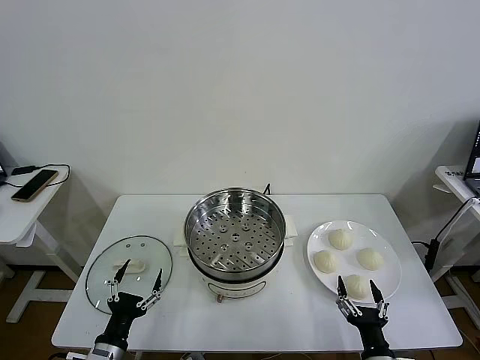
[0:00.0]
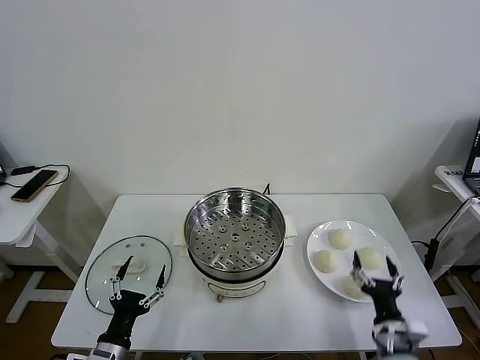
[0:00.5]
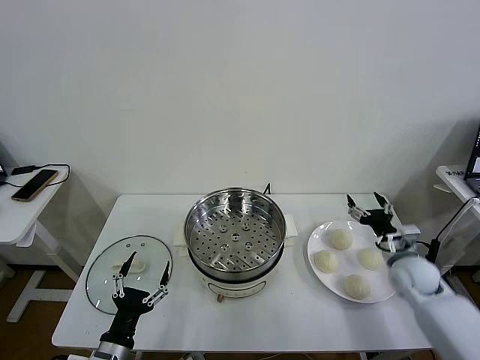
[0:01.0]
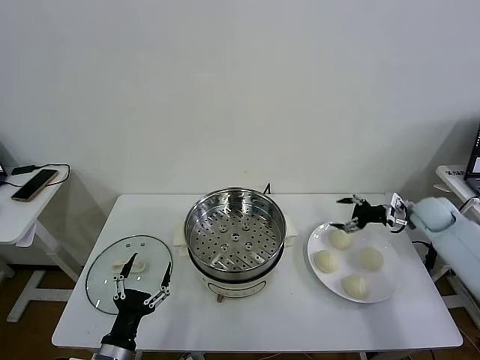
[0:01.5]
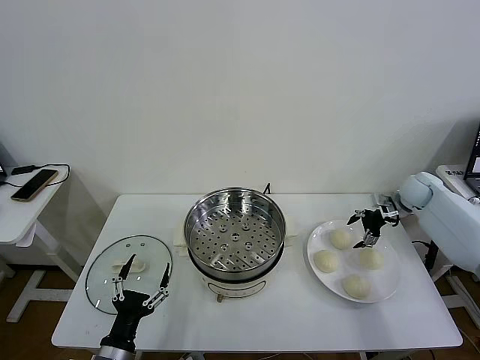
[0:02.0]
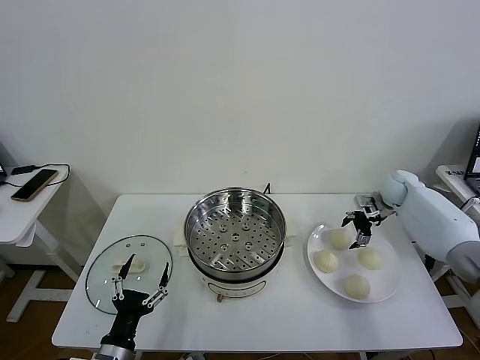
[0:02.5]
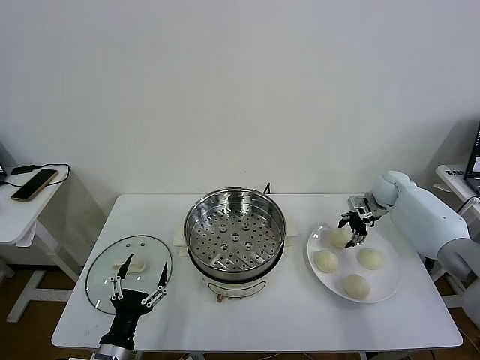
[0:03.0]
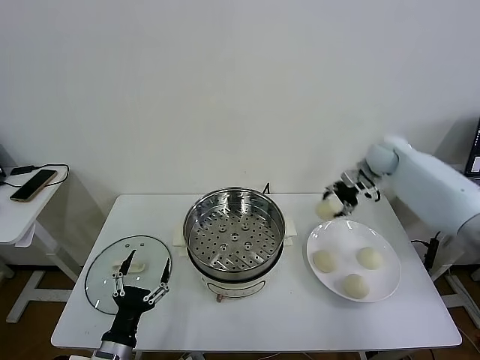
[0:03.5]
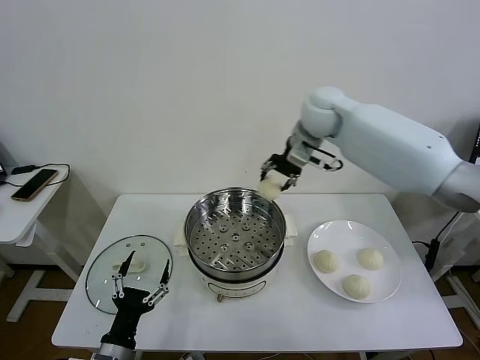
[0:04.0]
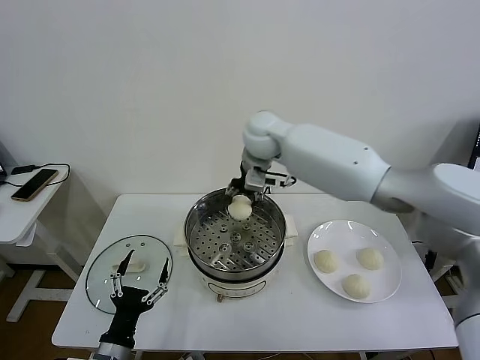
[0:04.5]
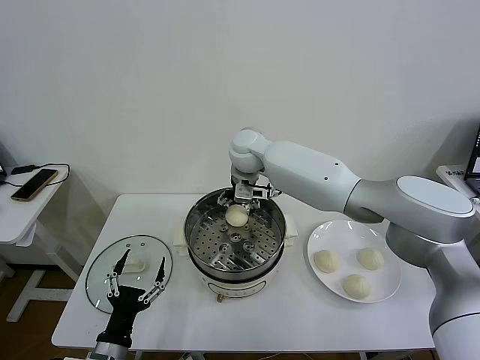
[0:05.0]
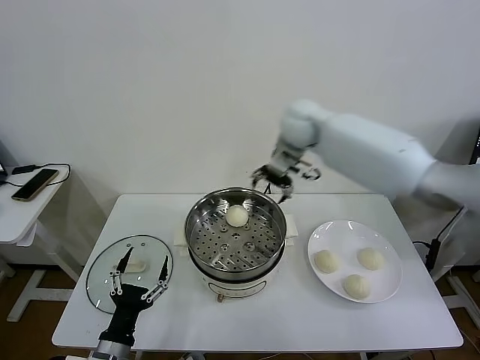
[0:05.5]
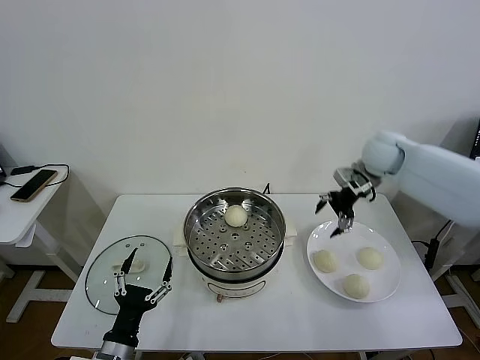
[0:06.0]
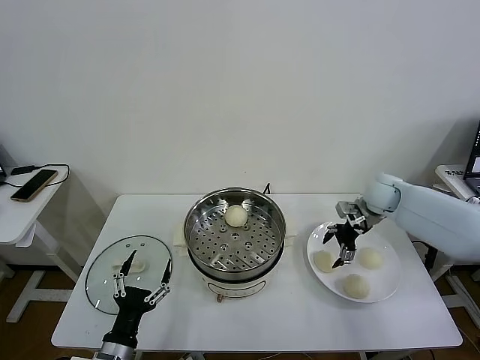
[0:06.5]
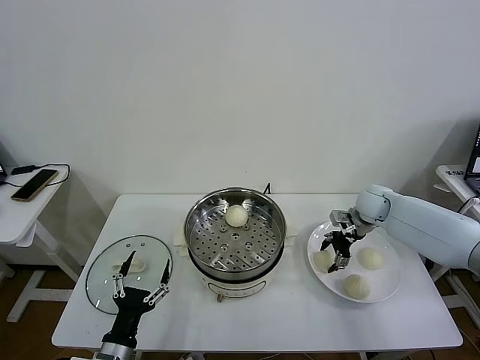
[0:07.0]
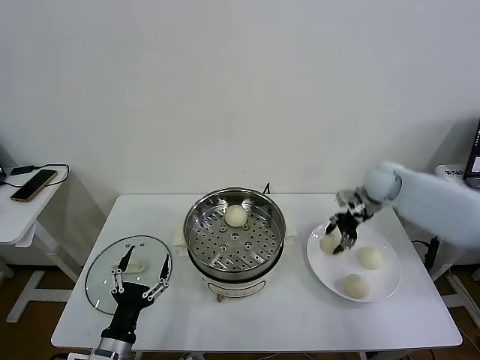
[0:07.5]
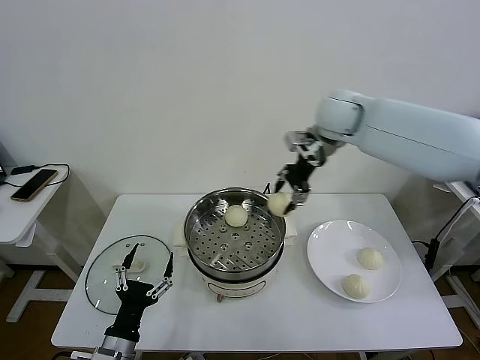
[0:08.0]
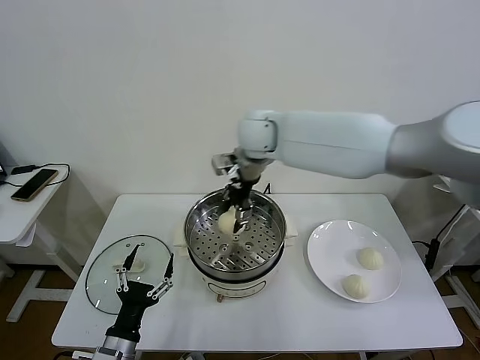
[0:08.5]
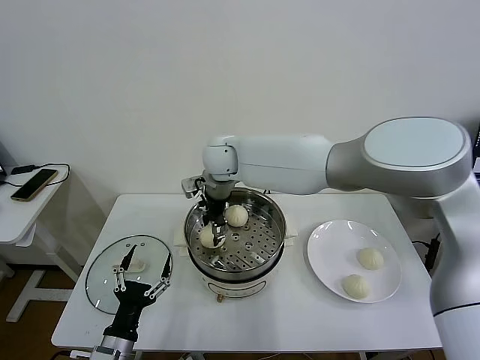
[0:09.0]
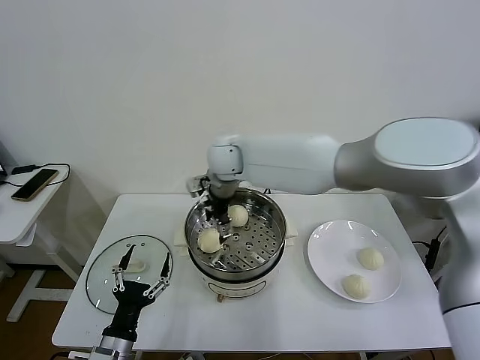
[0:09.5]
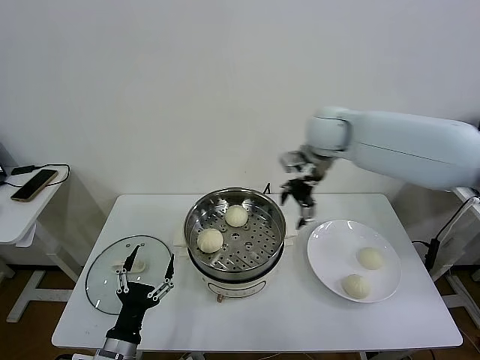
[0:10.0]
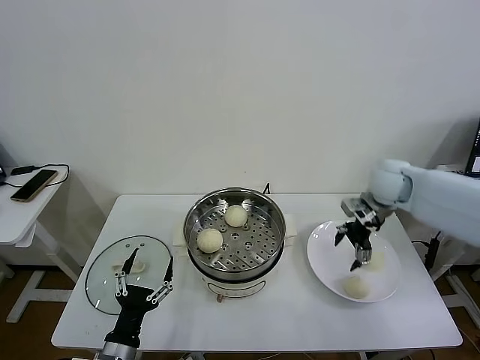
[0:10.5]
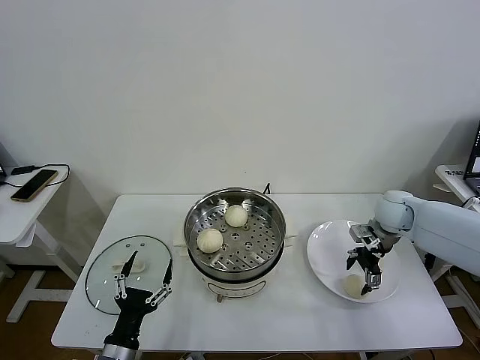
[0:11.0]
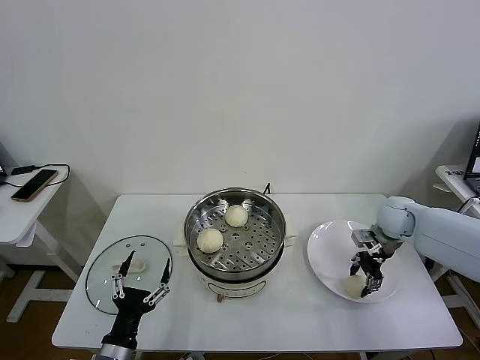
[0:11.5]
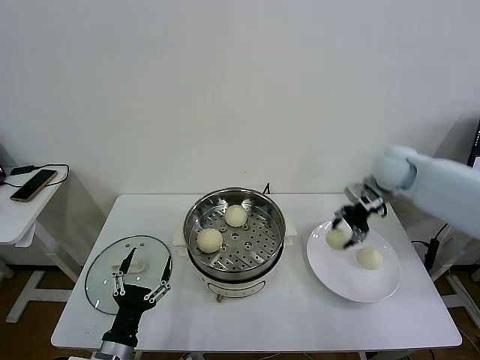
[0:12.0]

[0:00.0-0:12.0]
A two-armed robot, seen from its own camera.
Task of the whole recording: take steamed baozi put them in steamer then cover it.
Step, 0:00.0 to 0:03.0: Grasp the baozi in the plate with right gripper.
Step, 0:03.5 to 0:05.0: Place the baozi on the steamer with right gripper.
Step, 0:05.5 to 0:07.0: Grasp the baozi in the plate with right gripper.
Step, 0:07.5 to 0:09.0: Place the baozi on the steamer with right gripper.
Step, 0:09.5 to 0:11.5: Grasp the baozi in the plate with right gripper.
0:02.0 to 0:04.0: The right gripper moves to the left and upward, about 40 cm, and closes up.
0:04.0 to 0:06.0: The right gripper shifts approximately 25 cm to the right and downward, and opens.
0:06.0 to 0:08.0: The right gripper moves to the left and upward, roughly 20 cm, and closes.
0:08.0 to 0:10.0: The right gripper moves about 20 cm to the left and comes back, and opens.
0:10.0 to 0:12.0: The right gripper is displaced to the right by about 10 cm, goes downward and returns, roughly 20 cm each way, and closes up.

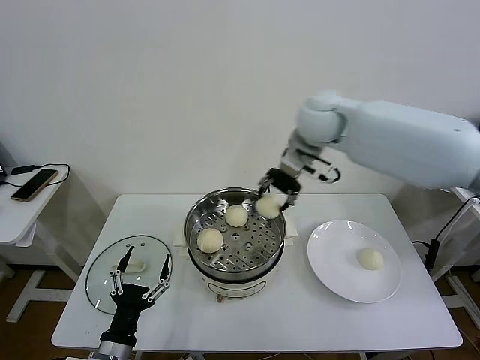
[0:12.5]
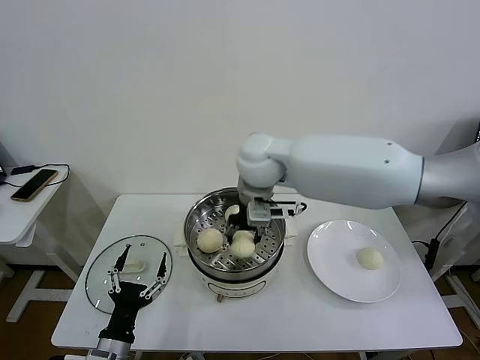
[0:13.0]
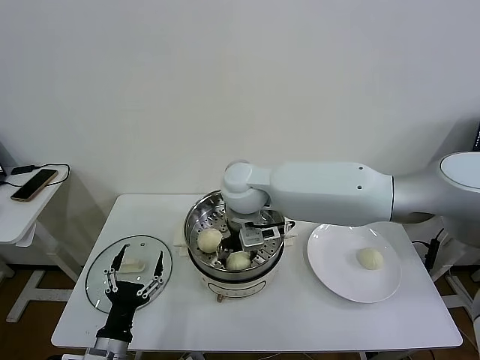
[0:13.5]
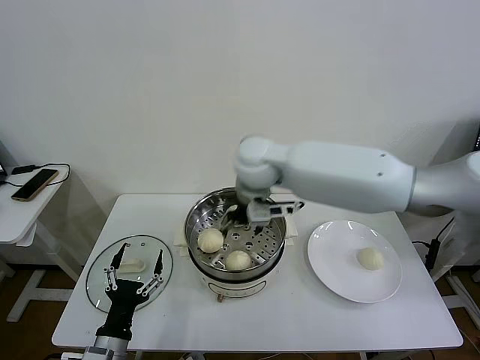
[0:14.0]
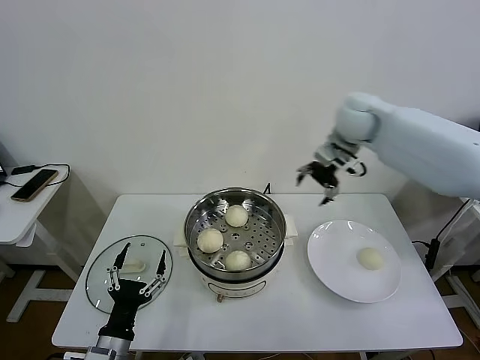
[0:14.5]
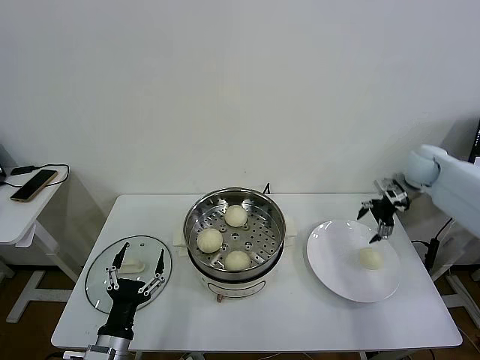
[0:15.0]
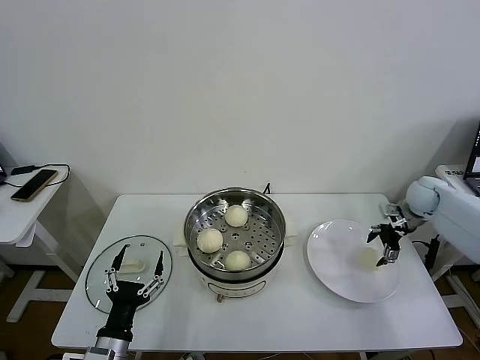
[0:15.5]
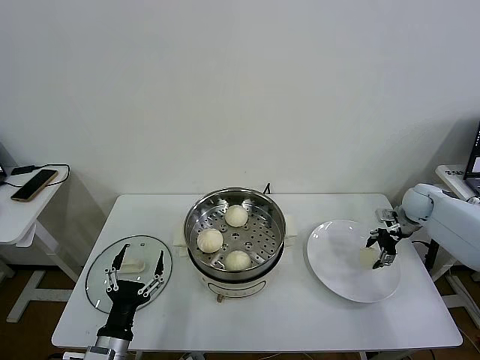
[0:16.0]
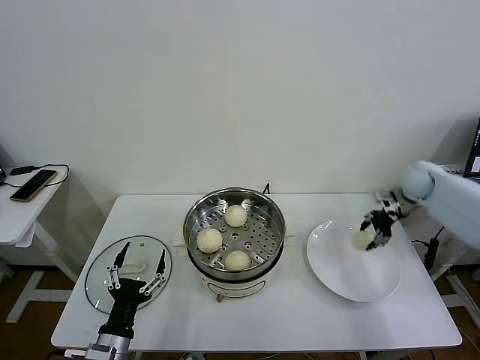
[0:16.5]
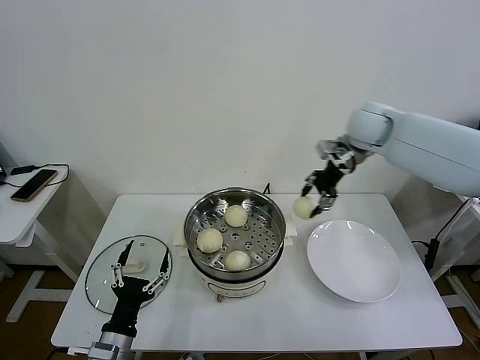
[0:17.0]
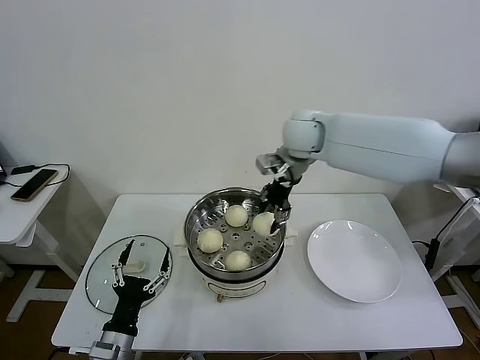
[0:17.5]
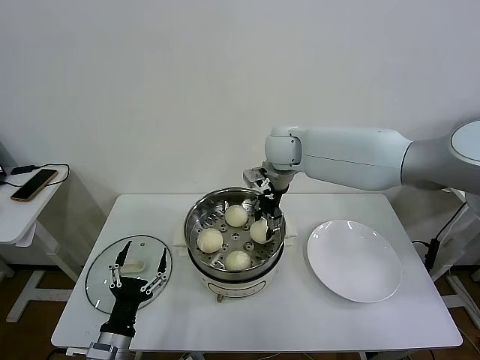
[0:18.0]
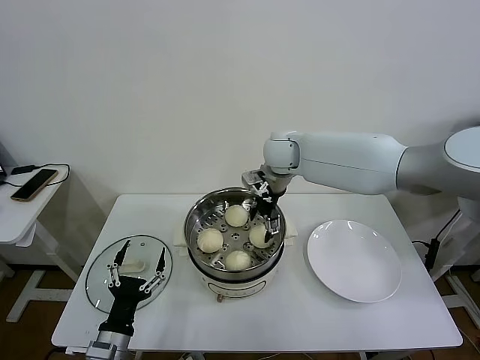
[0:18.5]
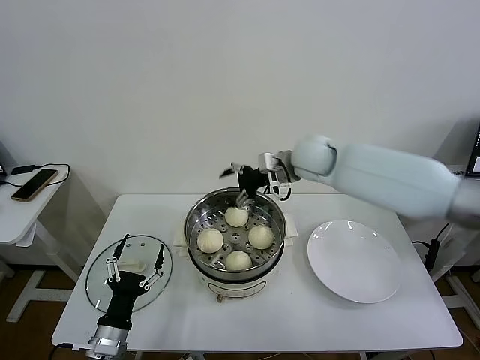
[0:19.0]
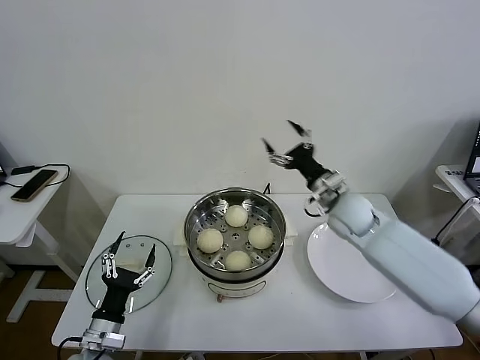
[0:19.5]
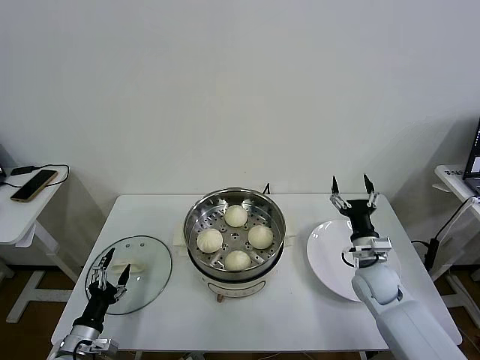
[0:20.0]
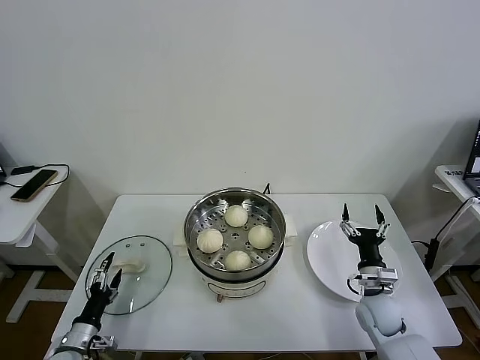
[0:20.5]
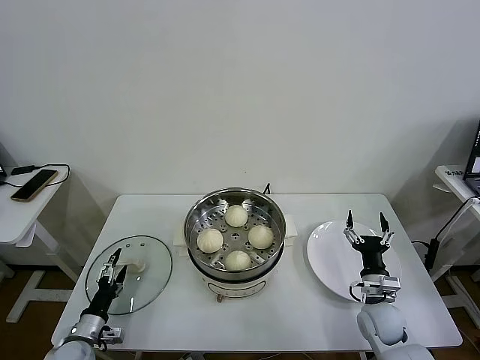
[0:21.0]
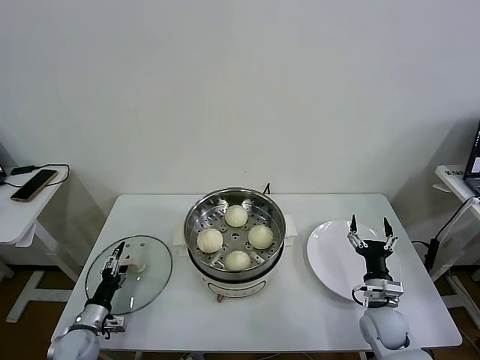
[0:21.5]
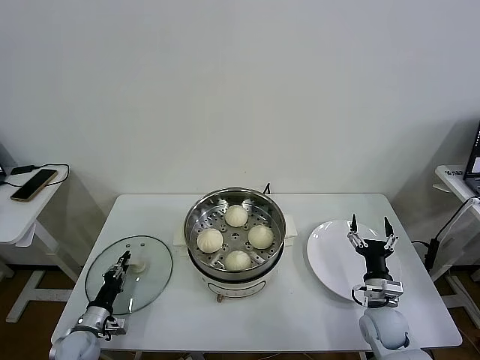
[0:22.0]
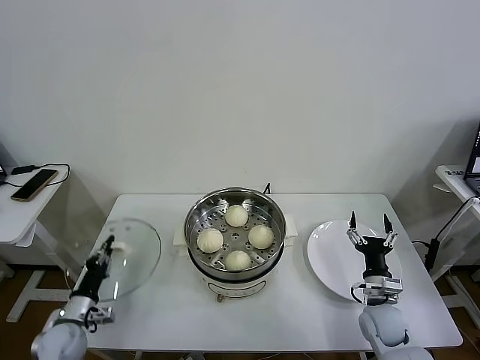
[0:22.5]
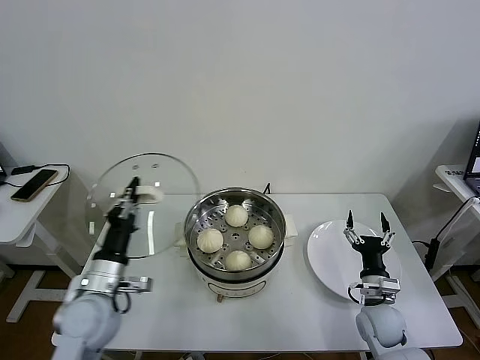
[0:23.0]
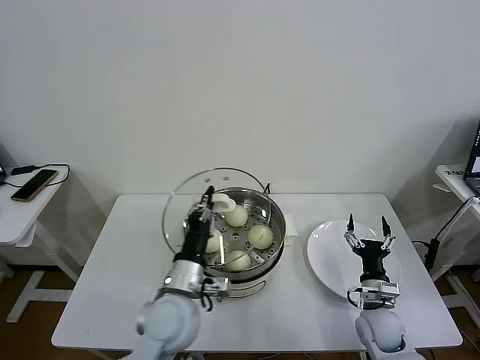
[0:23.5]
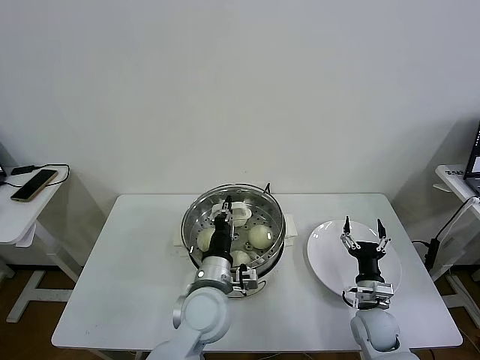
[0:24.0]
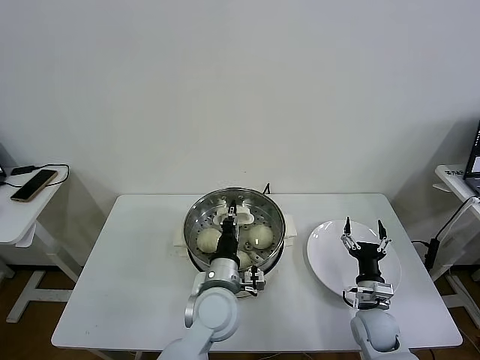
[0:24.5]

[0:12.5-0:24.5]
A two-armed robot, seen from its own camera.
Task of the whole recording: take steamed baozi put them in steamer then cover it.
Step, 0:12.5 to 0:13.5: Place the baozi on the steamer with right gripper.
Step, 0:14.0 to 0:16.0: Grasp the baozi in the plate with right gripper.
Step, 0:16.5 to 0:18.0: Place the baozi on the steamer with right gripper.
Step, 0:18.5 to 0:22.0: Grasp the pot lid with left gripper.
0:12.5 to 0:14.5: The right gripper goes about 15 cm to the right, and opens up.
0:14.5 to 0:16.5: The right gripper travels to the right and downward by approximately 25 cm, and closes.
0:16.5 to 0:18.5: The right gripper moves to the left, approximately 35 cm, and opens.
0:18.5 to 0:20.5: The left gripper goes roughly 15 cm to the left and downward. Meanwhile the right gripper moves downward, backward and to the right, approximately 40 cm.
0:20.5 to 0:22.5: The left gripper heads forward, covering roughly 5 cm, and closes.
0:22.5 to 0:24.5: The left gripper moves to the right and upward, roughly 40 cm.

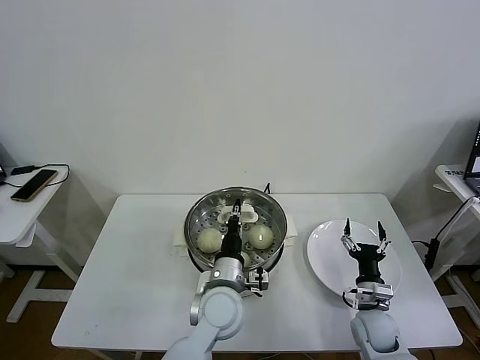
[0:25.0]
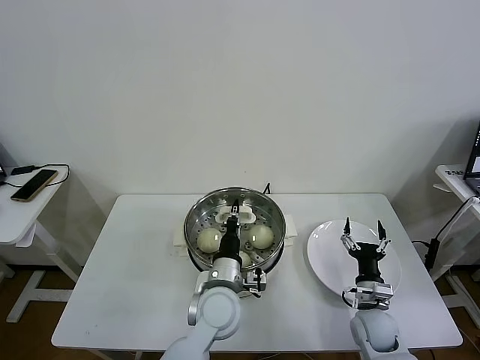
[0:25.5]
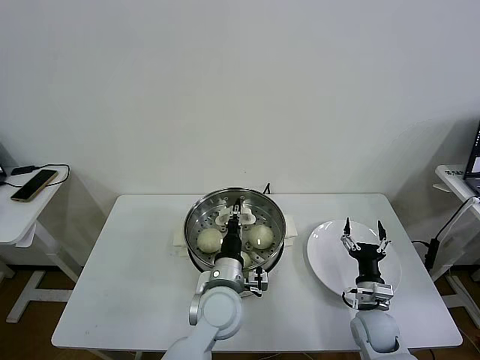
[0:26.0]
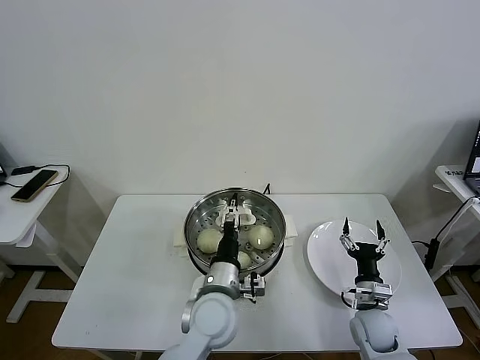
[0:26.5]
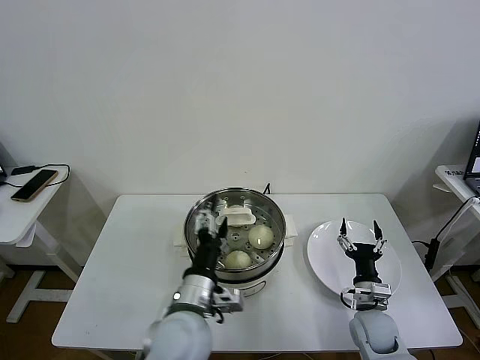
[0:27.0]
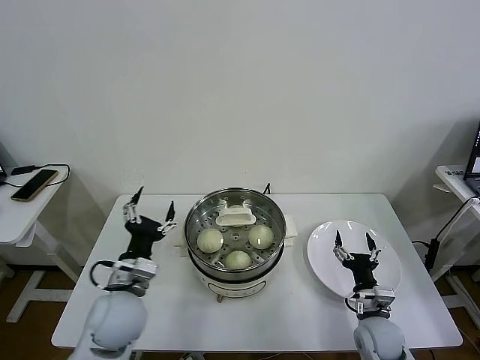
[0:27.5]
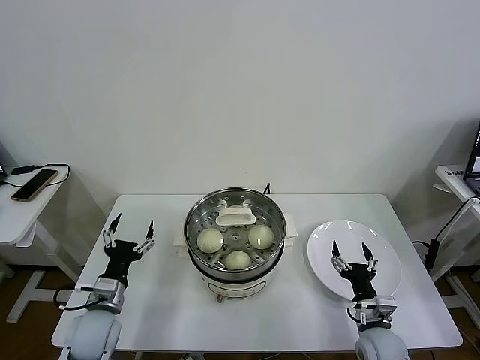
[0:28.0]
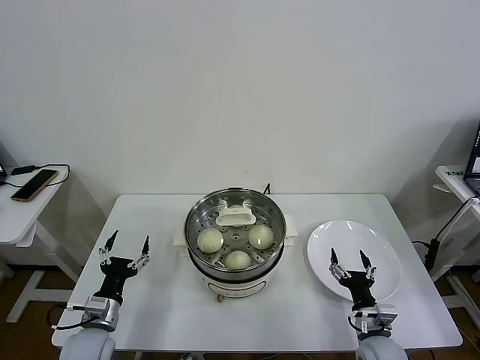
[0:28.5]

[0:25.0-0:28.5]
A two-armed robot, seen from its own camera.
Task of the whole recording: take steamed baozi put them in steamer then cover it.
0:25.0 to 0:27.0: The left gripper moves backward, roughly 5 cm, and opens up.
0:27.0 to 0:28.5: The right gripper shifts roughly 5 cm backward. The left gripper goes roughly 25 cm to the left and downward.
